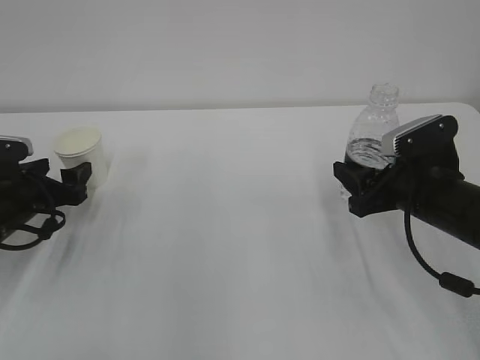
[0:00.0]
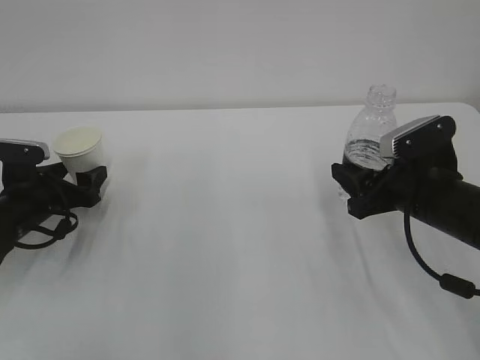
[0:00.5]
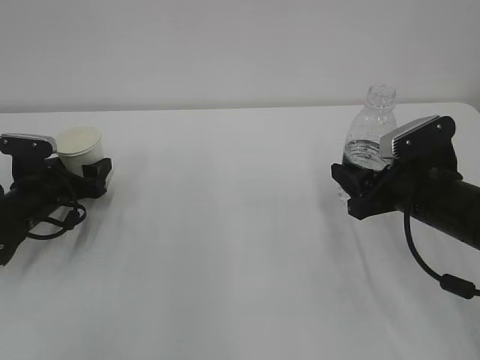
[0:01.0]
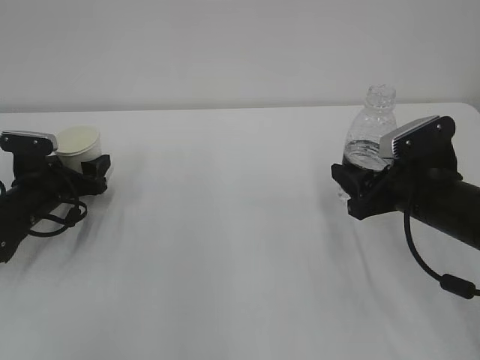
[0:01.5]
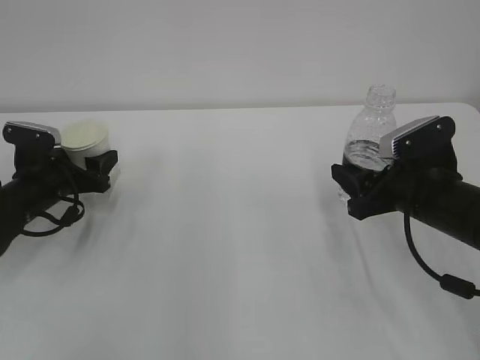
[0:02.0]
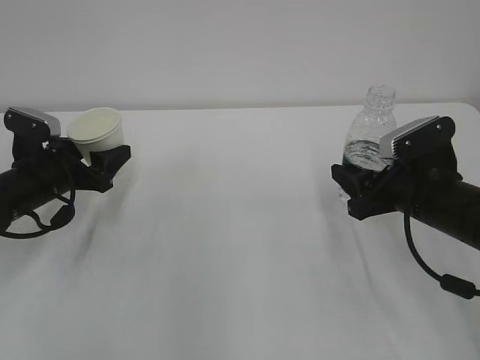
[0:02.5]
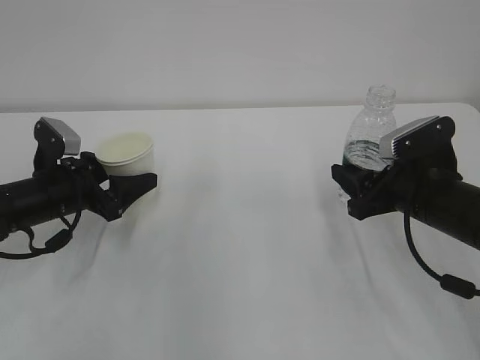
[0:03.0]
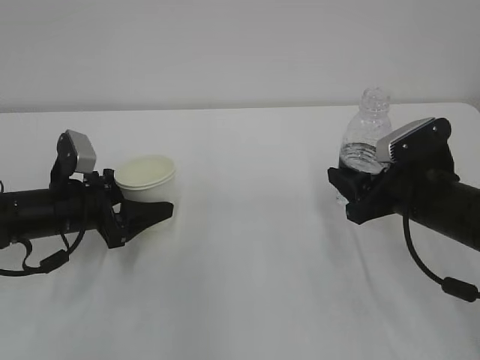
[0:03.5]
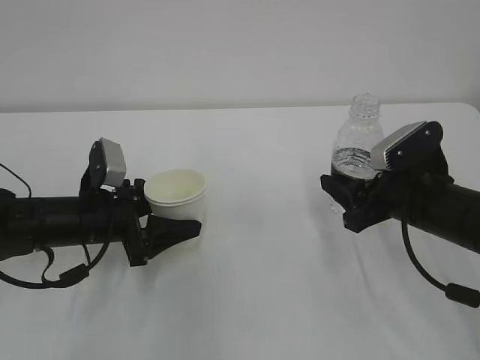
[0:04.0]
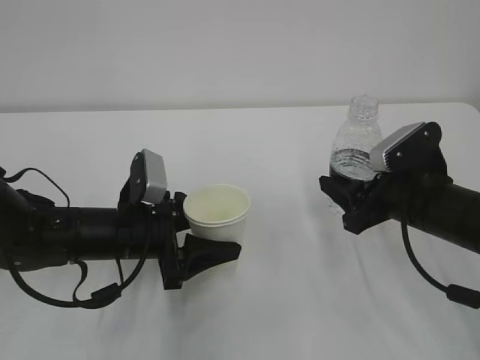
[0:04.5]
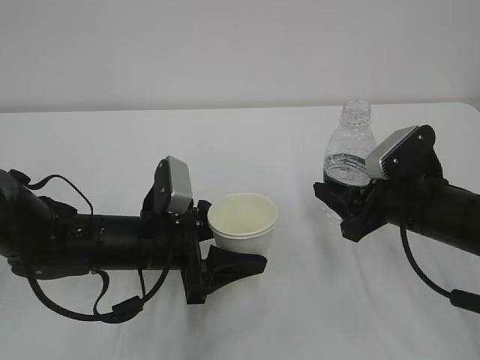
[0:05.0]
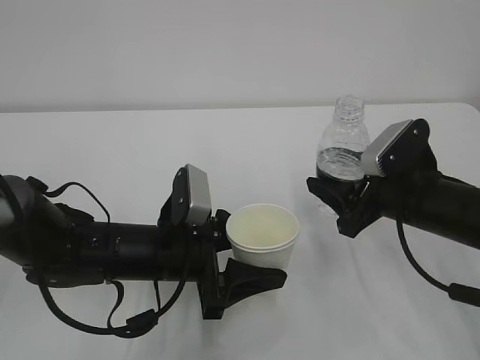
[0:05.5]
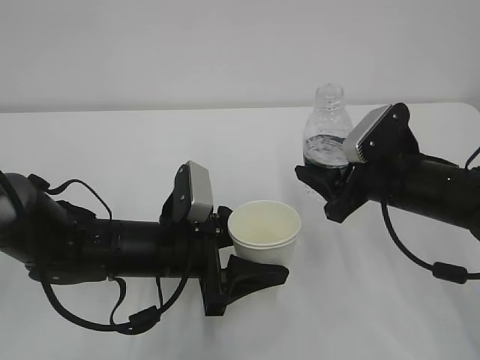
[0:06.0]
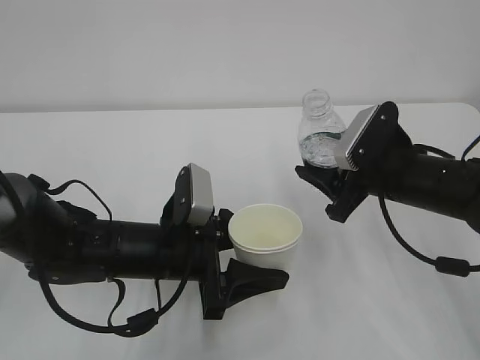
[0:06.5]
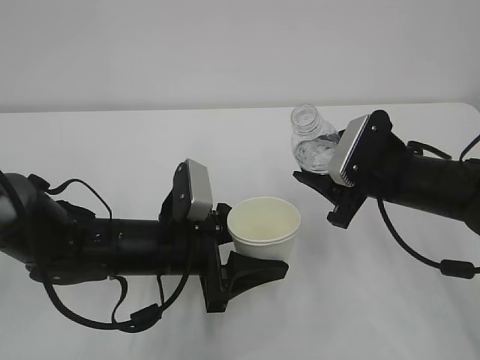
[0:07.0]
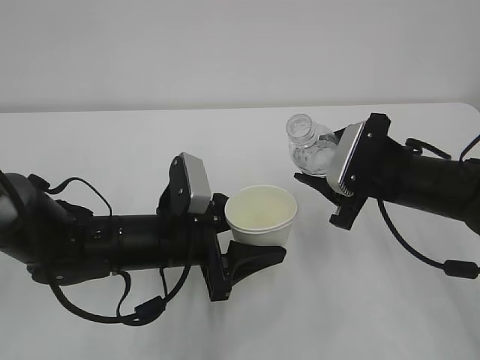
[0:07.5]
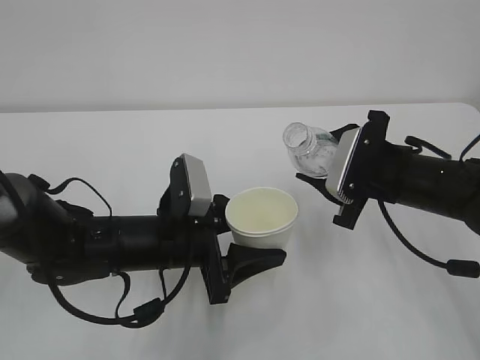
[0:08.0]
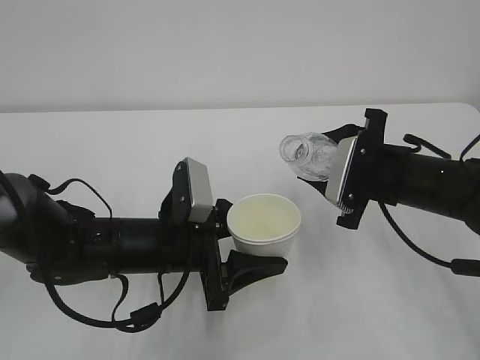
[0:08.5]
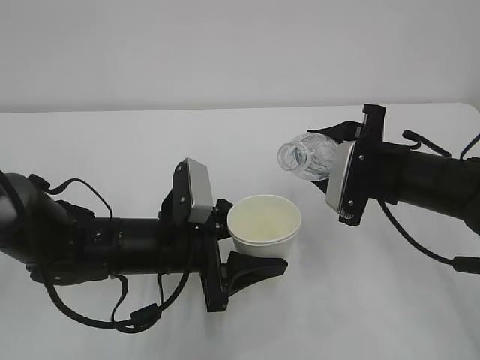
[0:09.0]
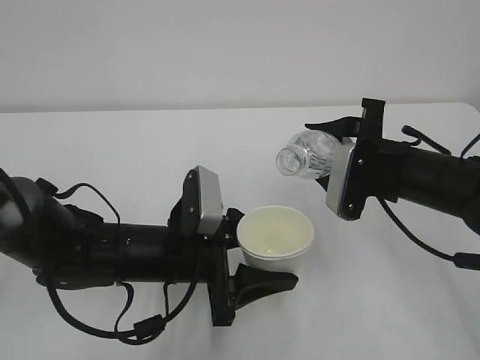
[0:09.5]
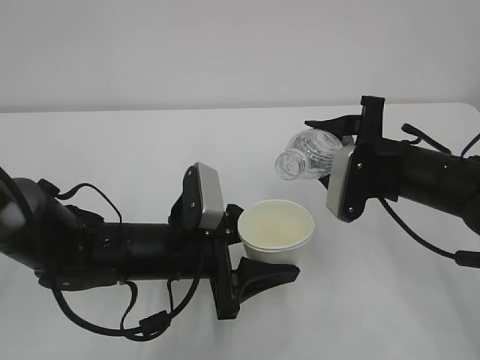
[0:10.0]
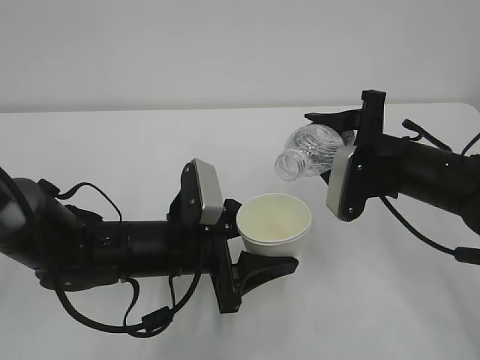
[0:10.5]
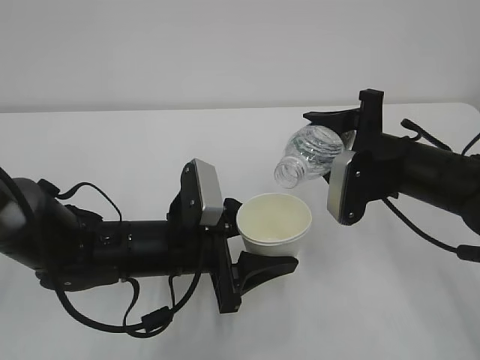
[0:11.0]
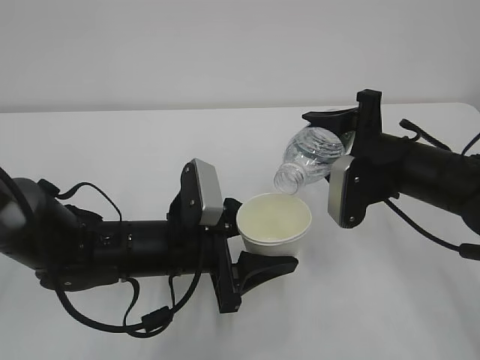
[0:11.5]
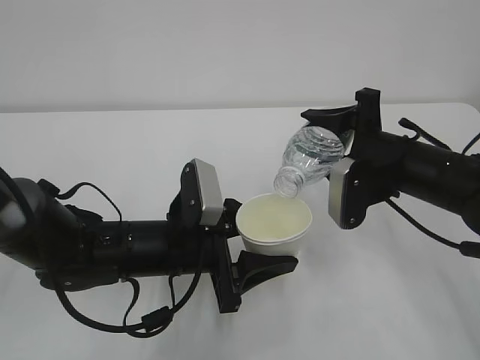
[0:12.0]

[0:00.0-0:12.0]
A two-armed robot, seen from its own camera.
0:00.0 to 0:02.0: The left gripper closes up.
0:02.0 to 0:04.0: The left gripper goes approximately 10 cm to the right and backward.
0:04.0 to 0:06.0: The left gripper is displaced to the right and backward by approximately 10 cm.
0:10.0 to 0:12.0: The grippers make only small movements.

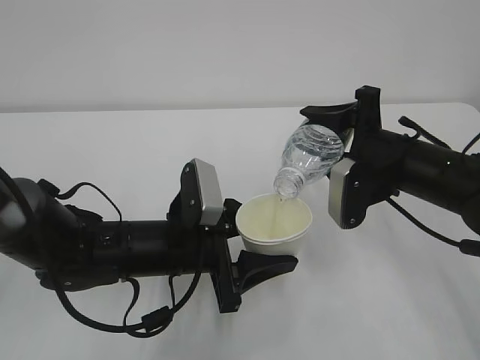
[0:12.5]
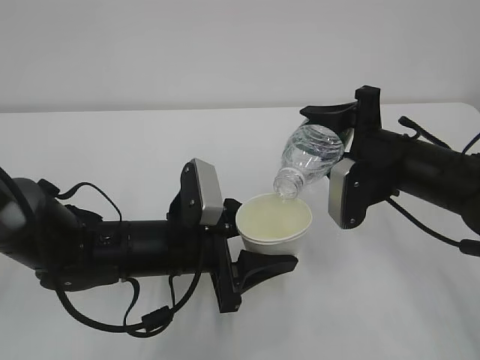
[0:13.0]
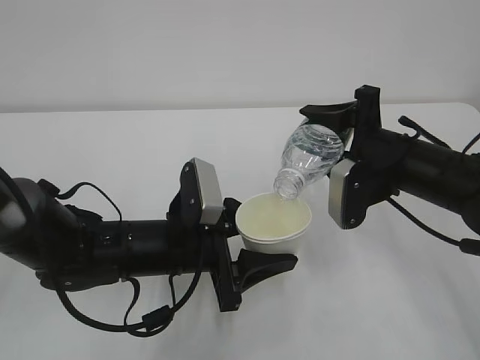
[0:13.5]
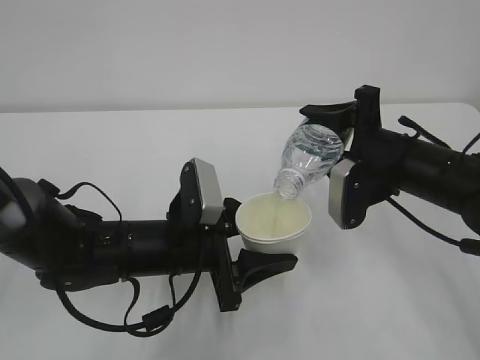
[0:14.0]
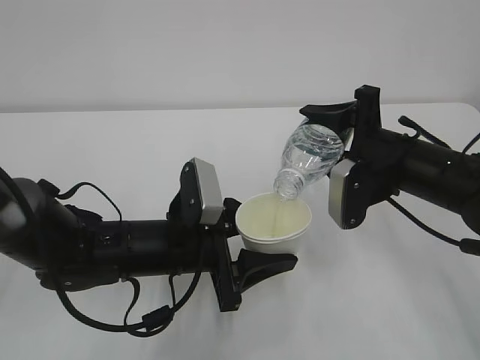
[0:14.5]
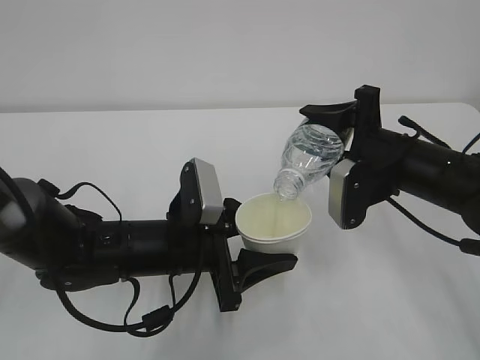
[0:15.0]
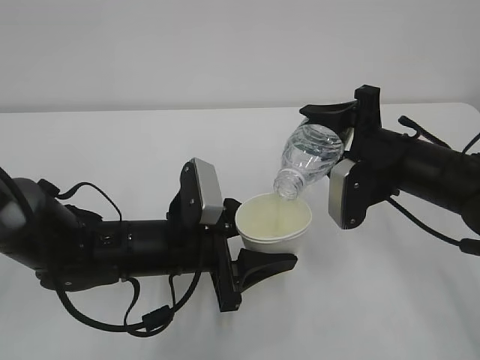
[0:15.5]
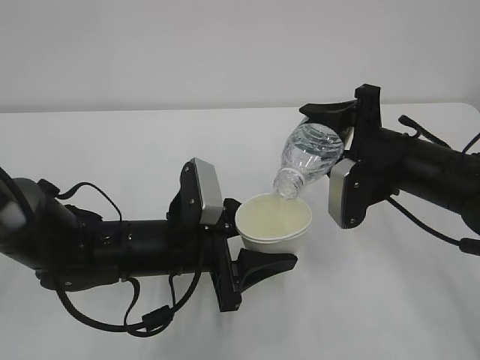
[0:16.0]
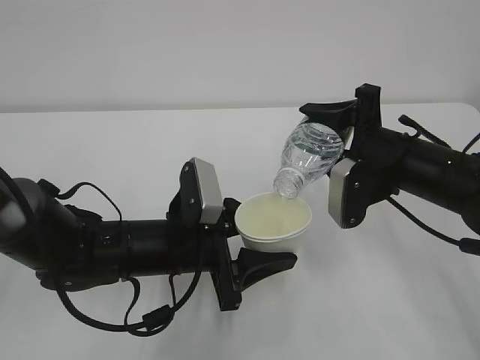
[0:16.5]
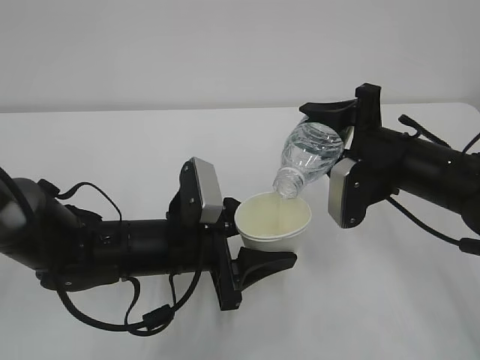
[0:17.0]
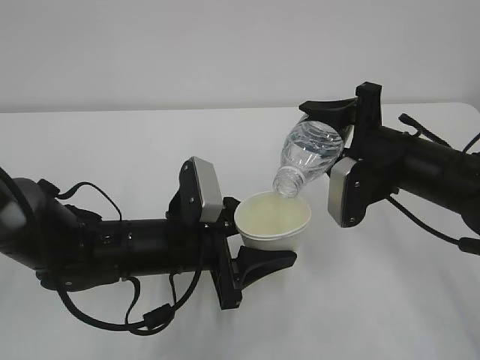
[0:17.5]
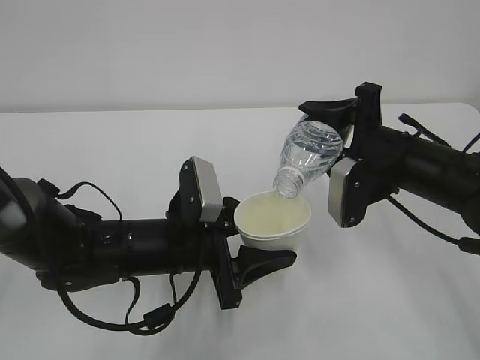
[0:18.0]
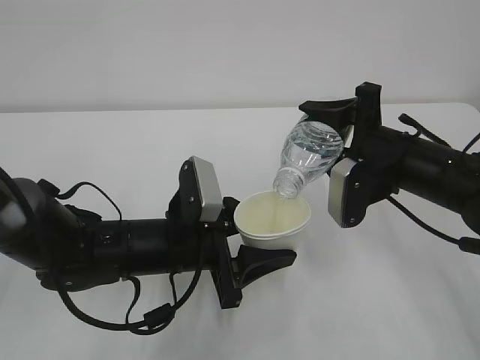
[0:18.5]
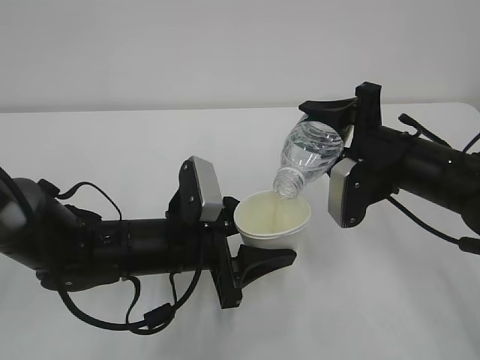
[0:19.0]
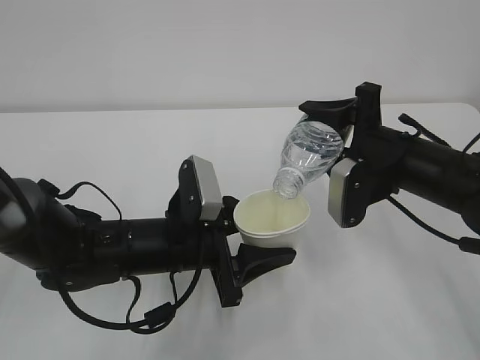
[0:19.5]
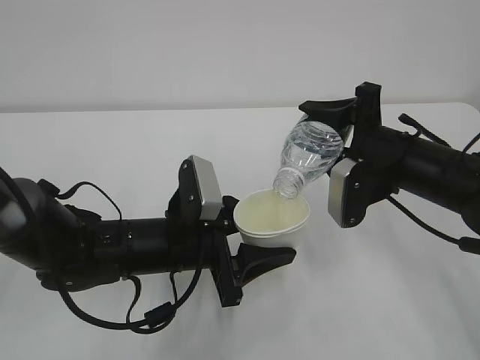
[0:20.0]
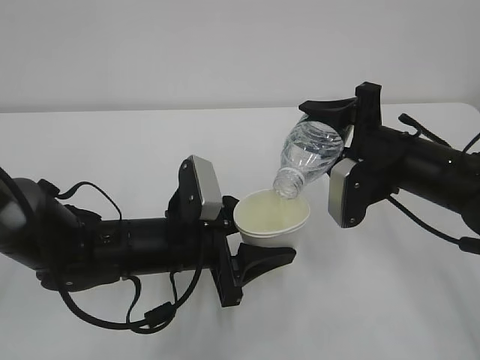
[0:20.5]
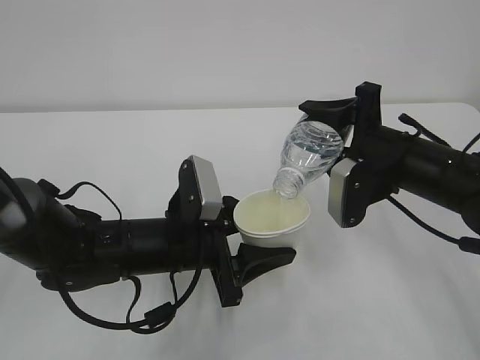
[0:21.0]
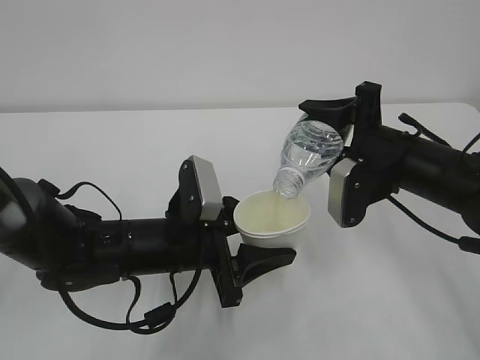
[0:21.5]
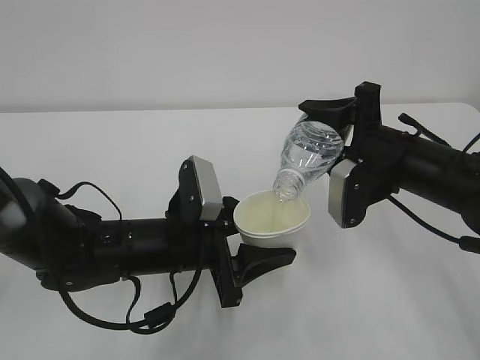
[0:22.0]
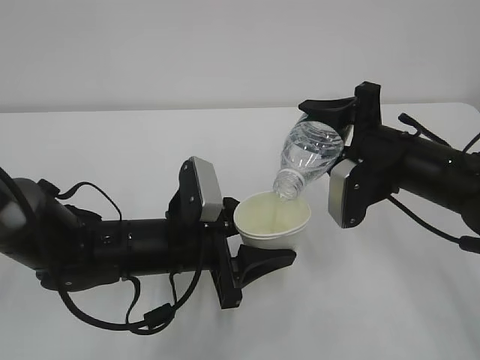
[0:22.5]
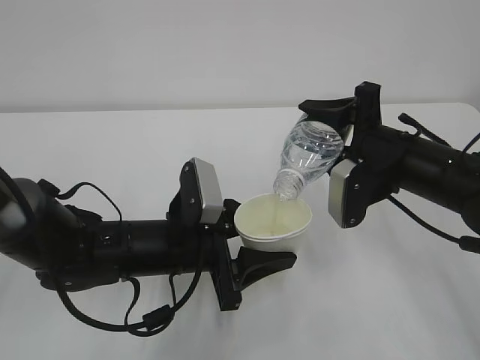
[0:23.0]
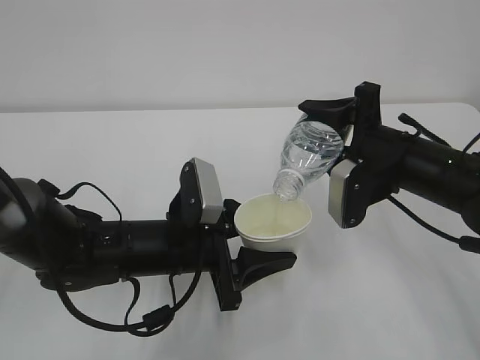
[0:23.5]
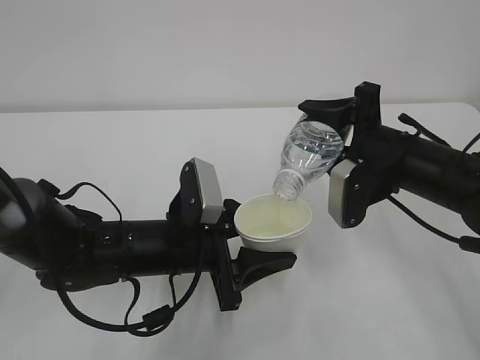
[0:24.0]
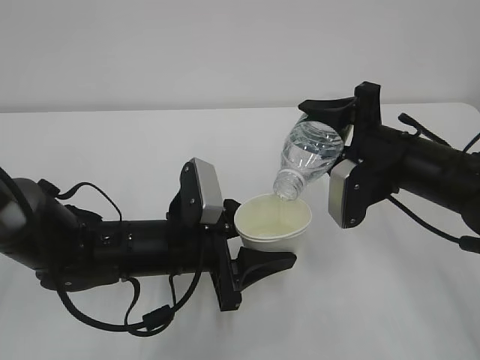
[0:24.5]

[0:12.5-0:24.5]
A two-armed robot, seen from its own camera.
0:12.5 to 0:24.5: Neither gripper changes place.

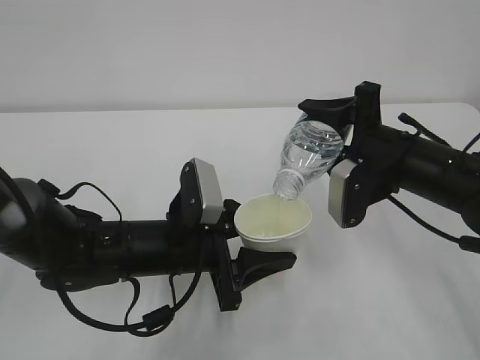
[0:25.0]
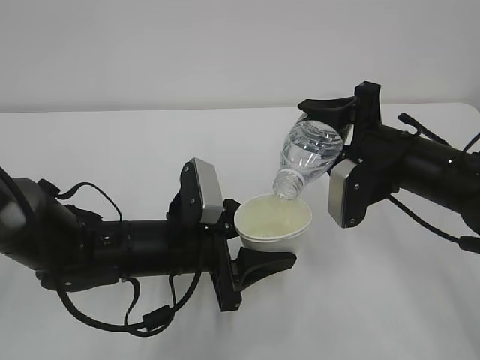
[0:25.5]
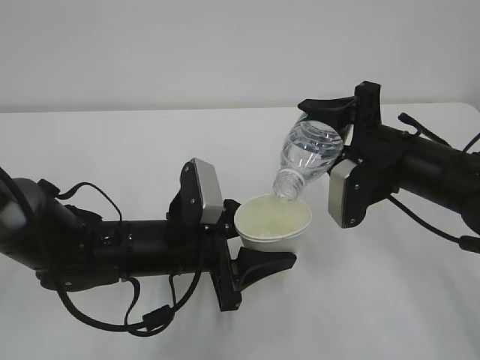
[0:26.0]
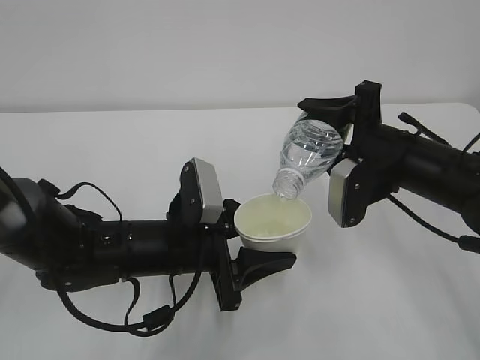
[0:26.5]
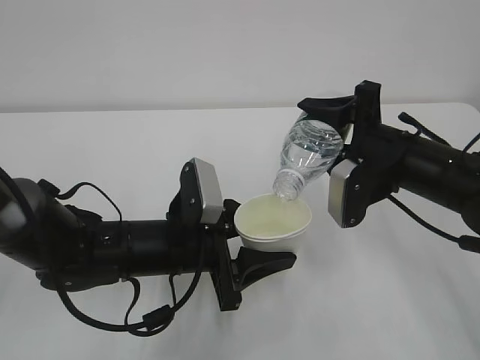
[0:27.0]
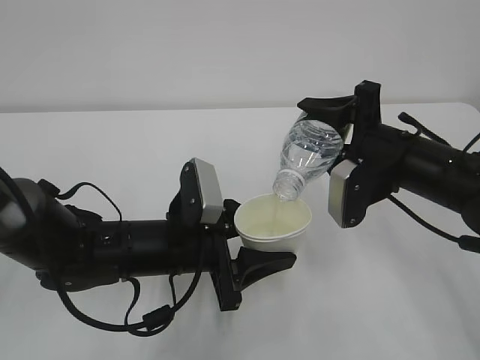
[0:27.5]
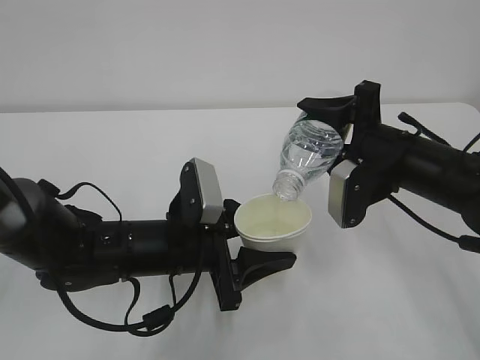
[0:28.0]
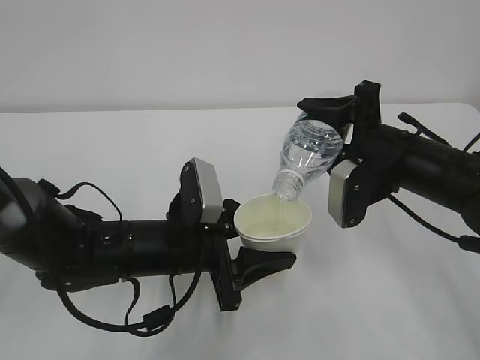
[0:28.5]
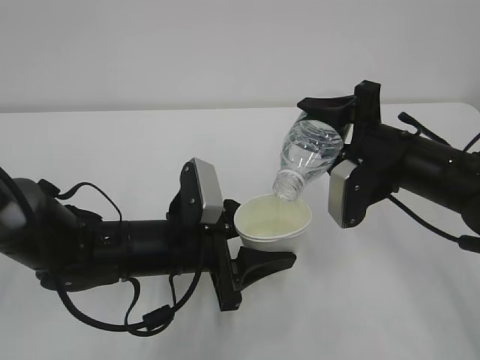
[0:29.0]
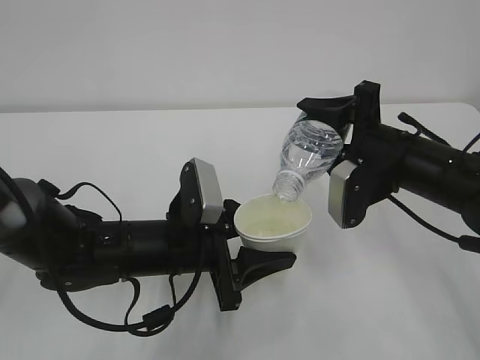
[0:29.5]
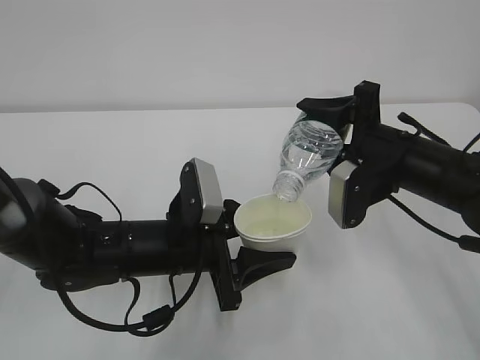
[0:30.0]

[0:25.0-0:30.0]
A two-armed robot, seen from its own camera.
0:25.0 to 0:30.0: Neither gripper changes place.
